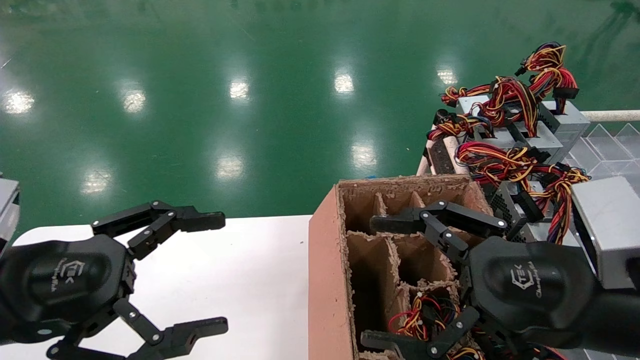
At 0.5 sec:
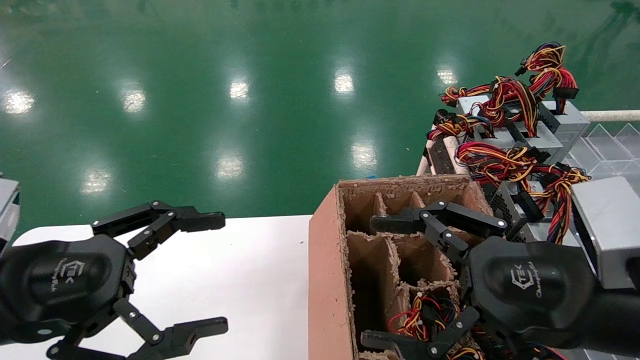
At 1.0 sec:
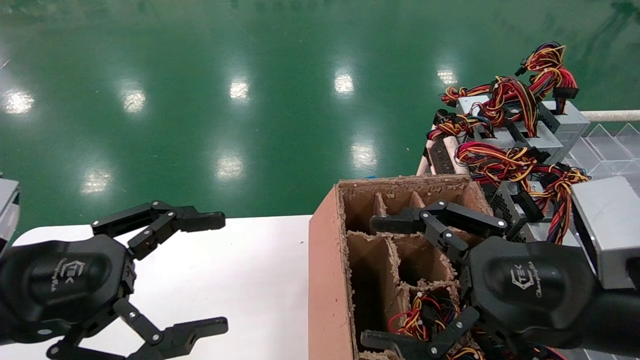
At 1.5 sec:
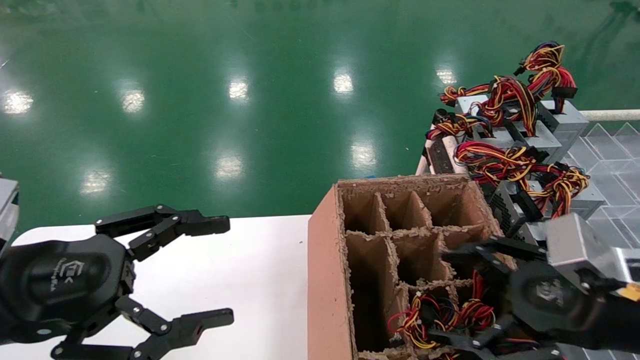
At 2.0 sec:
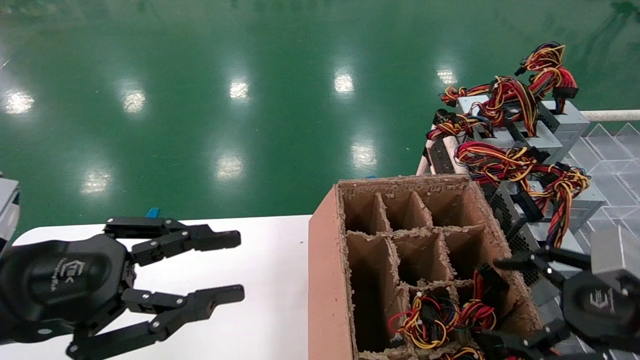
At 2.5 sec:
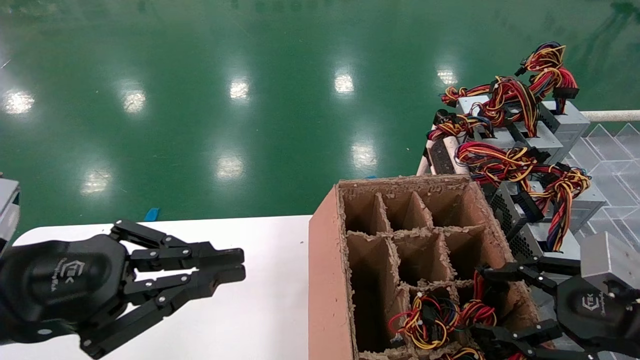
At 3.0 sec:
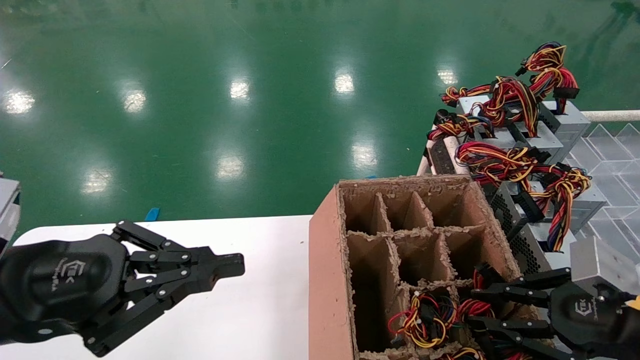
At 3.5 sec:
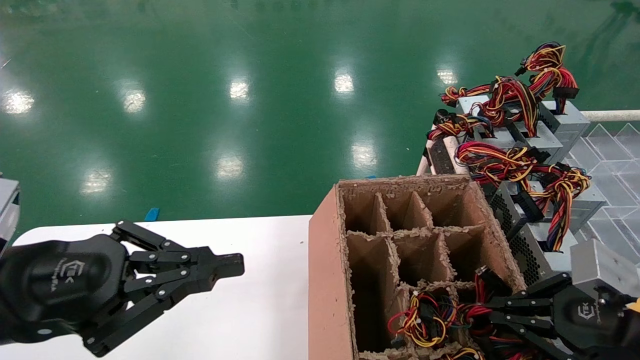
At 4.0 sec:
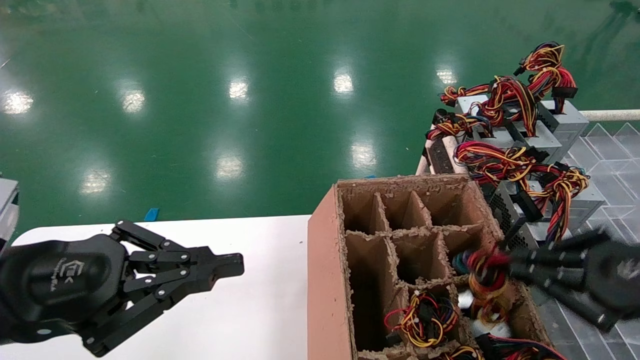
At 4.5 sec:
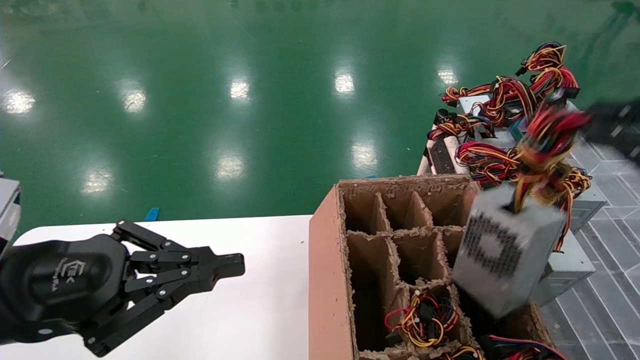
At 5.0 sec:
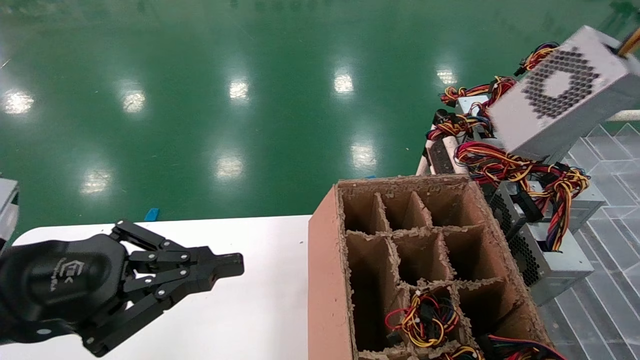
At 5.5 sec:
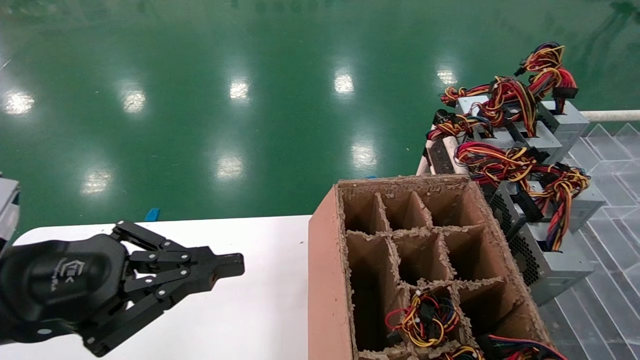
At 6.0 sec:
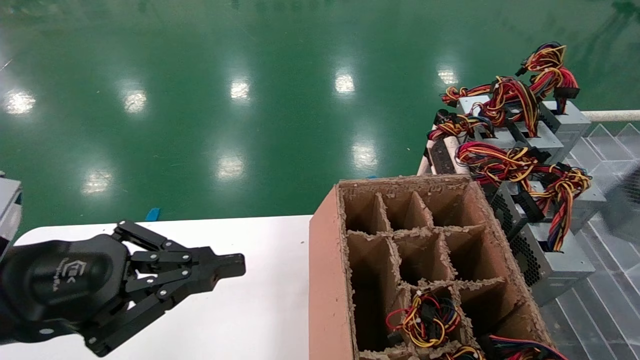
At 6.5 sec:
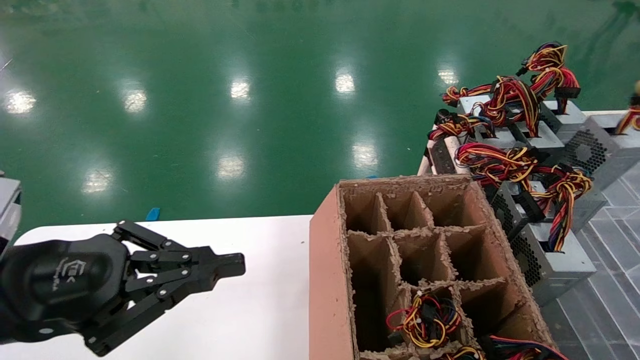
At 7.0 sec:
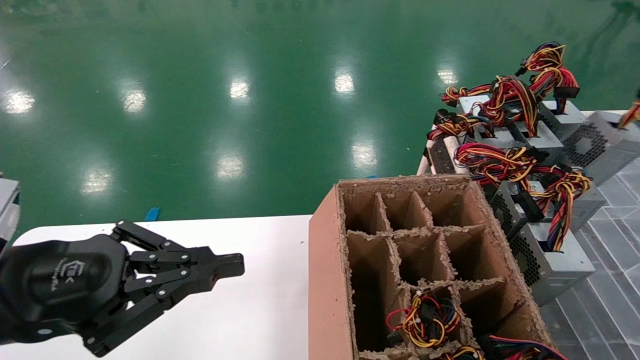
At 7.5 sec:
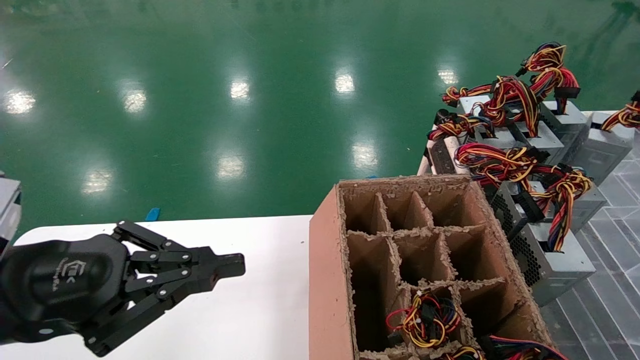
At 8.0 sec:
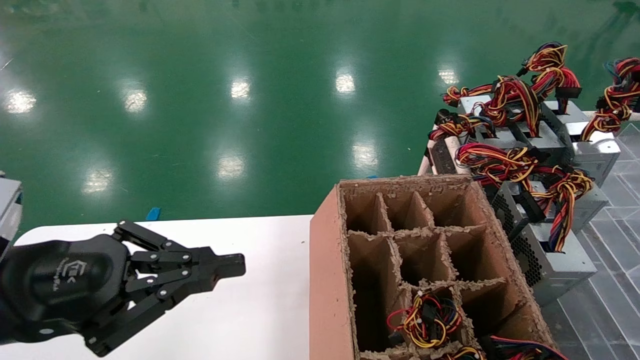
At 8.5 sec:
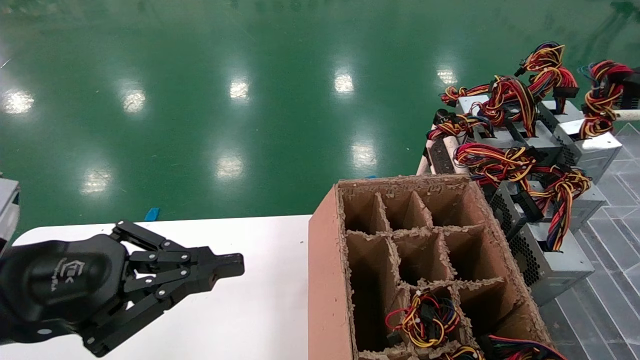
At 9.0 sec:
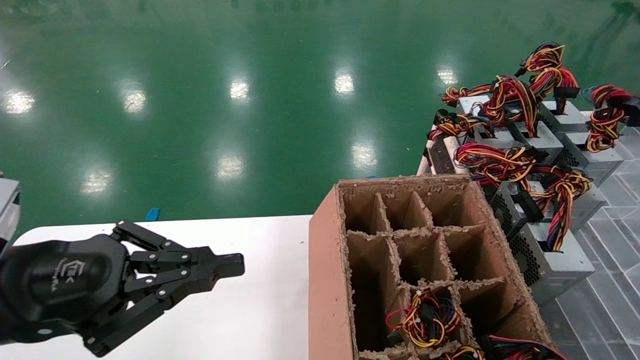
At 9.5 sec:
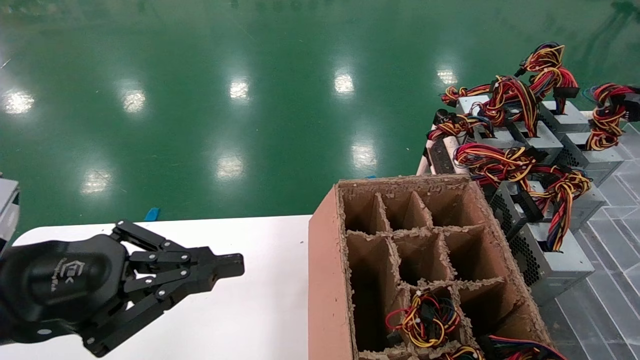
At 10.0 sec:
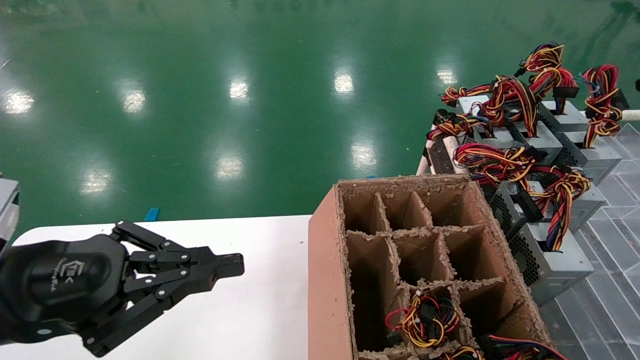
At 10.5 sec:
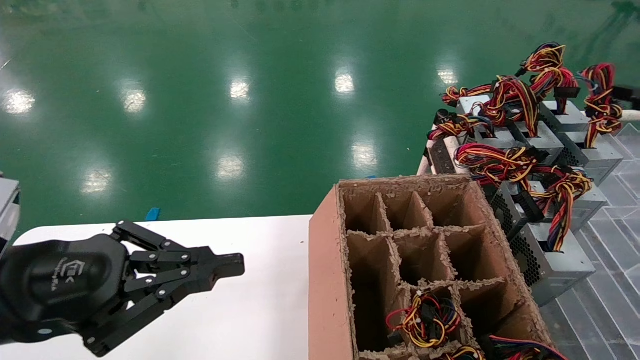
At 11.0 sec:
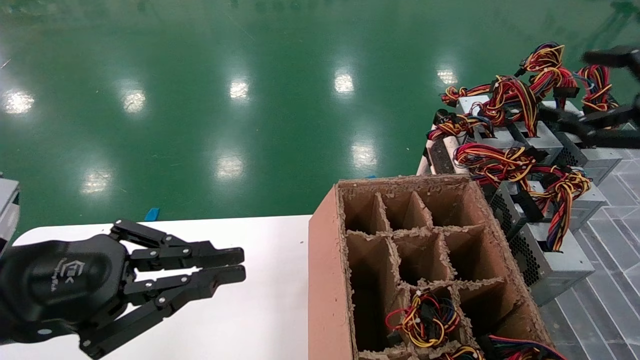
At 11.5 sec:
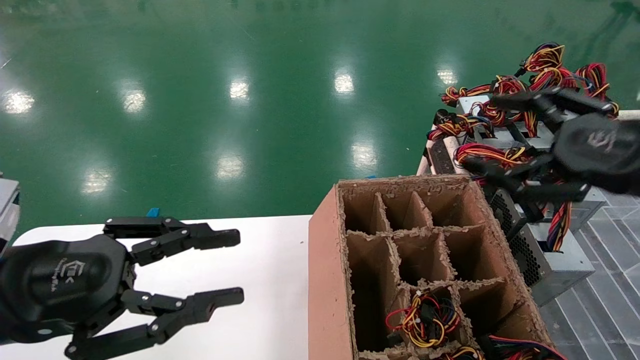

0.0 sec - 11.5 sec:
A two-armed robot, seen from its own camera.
Step, 1.5 sec - 3.0 sec: Grab the main unit power supply from the containment box.
Step, 3.5 sec - 10.5 sec: Place the main unit power supply in the designated area.
0.0 sec - 2.0 sec: The left gripper closes up; the right gripper travels to the right by roughly 10 cm.
2.0 sec - 4.0 sec: The right gripper closes up. The left gripper closes up.
4.0 sec - 6.0 sec: The right gripper moves to the right, approximately 20 cm.
6.0 sec - 7.5 sec: The right gripper shifts some 10 cm forward.
7.5 sec - 9.5 sec: There are only small adjustments of the grippers.
9.5 sec - 11.5 sec: The right gripper travels to the left by about 15 cm, and opens up.

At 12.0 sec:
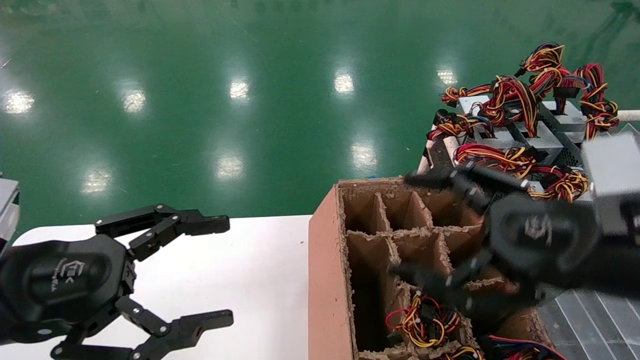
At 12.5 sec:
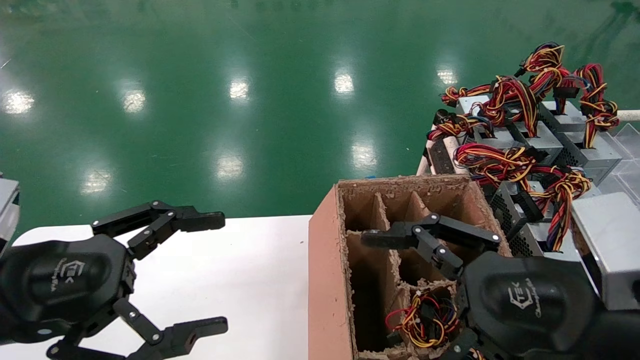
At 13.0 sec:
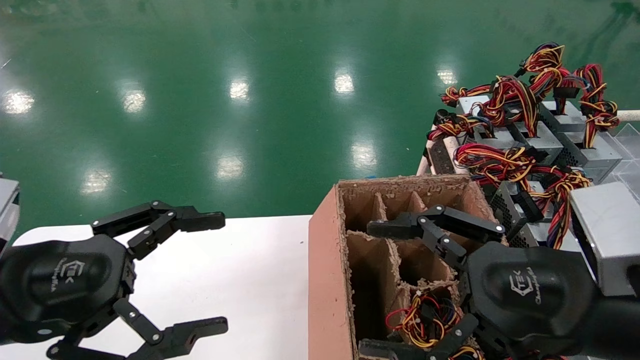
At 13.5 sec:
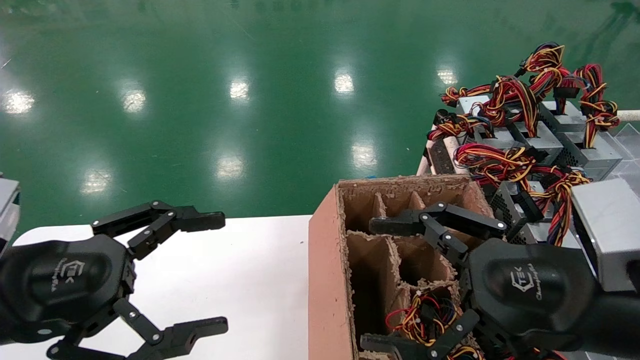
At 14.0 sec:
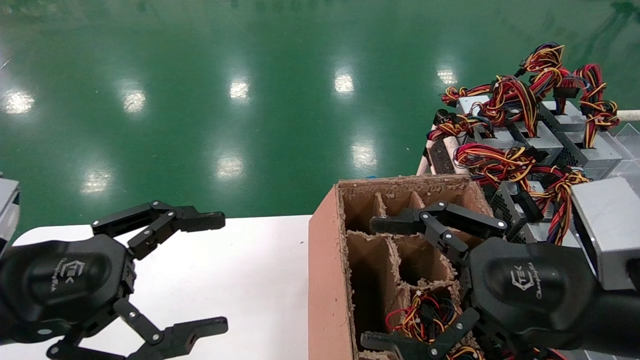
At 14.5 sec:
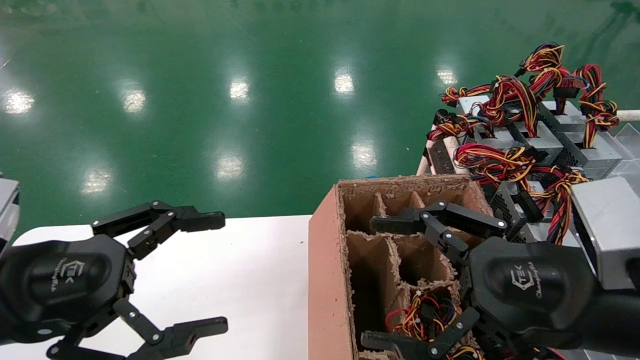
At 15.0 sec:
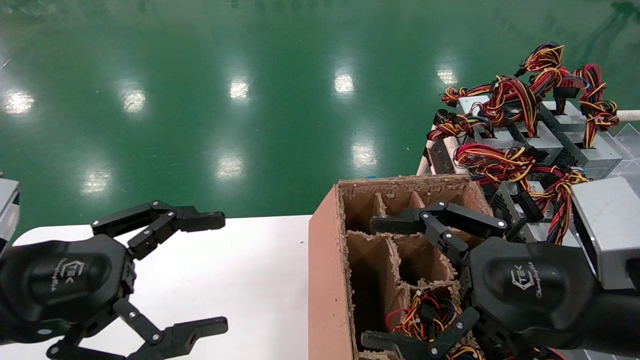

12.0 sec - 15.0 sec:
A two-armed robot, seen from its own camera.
12.0 sec - 13.5 sec: There are only small adjustments of the grippers.
13.5 sec - 15.0 sec: Both grippers stay about where they are.

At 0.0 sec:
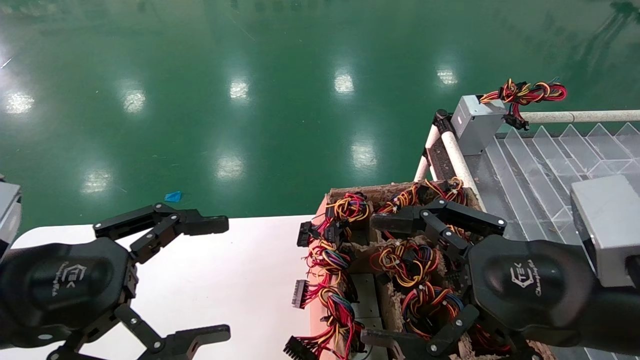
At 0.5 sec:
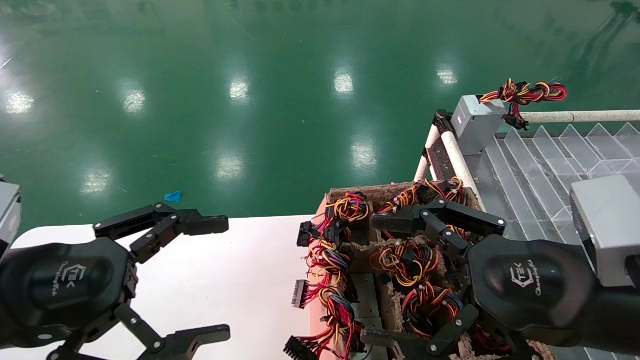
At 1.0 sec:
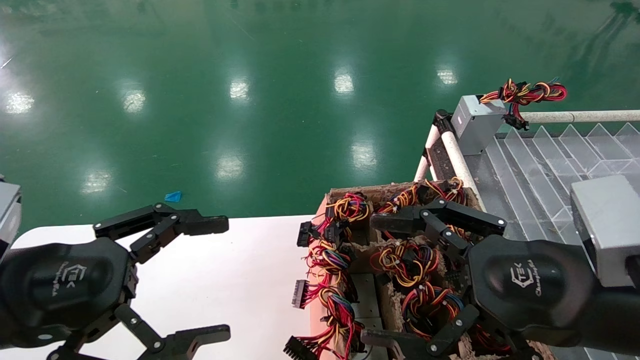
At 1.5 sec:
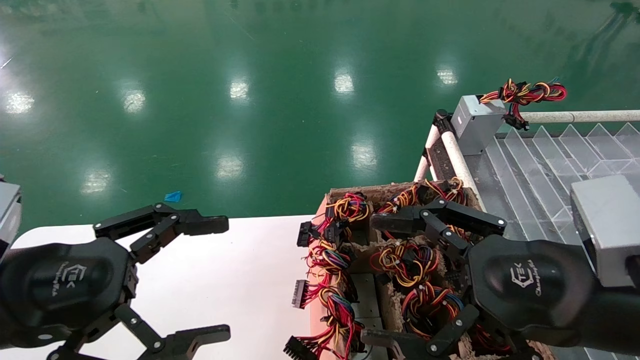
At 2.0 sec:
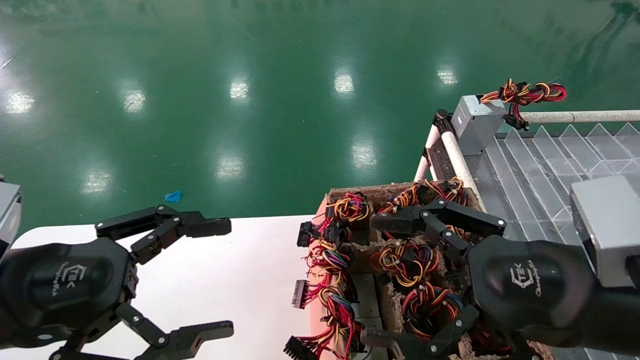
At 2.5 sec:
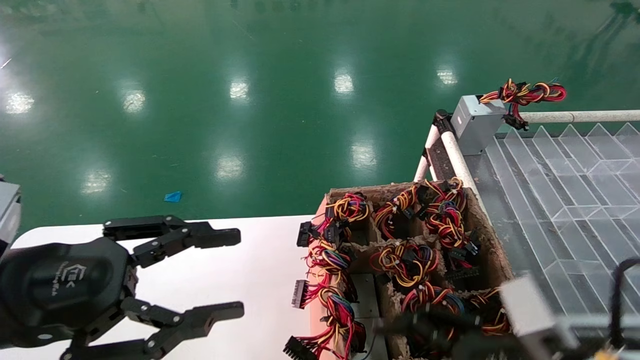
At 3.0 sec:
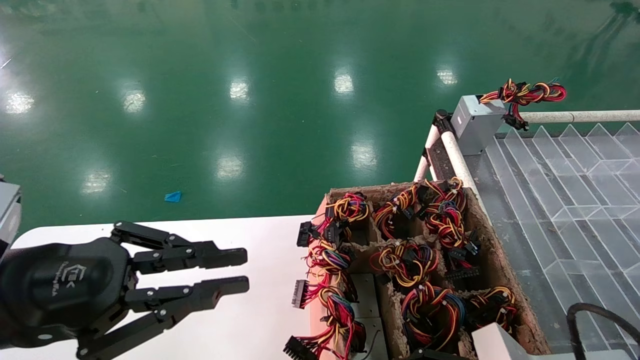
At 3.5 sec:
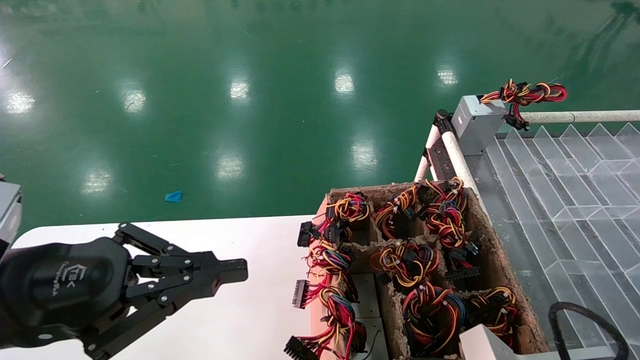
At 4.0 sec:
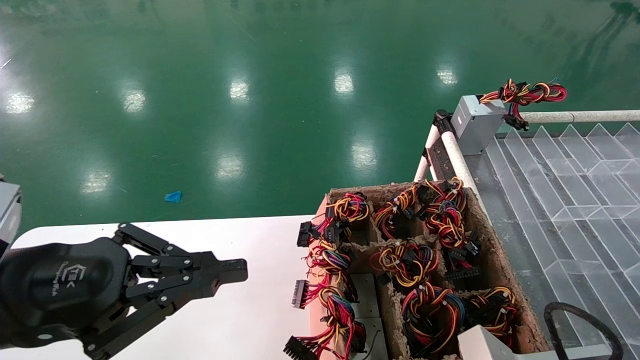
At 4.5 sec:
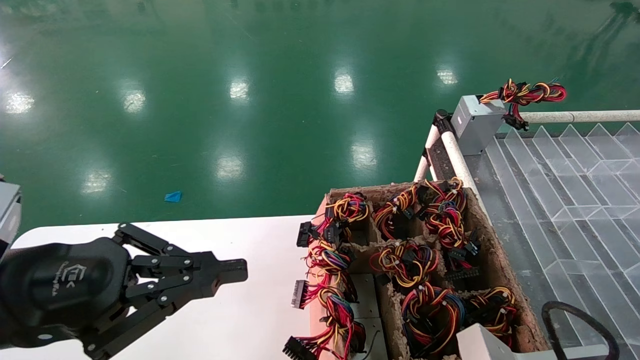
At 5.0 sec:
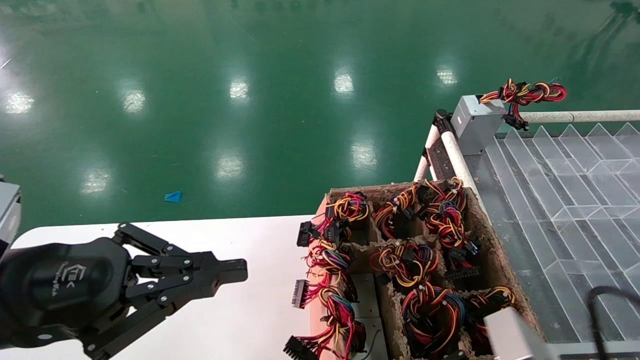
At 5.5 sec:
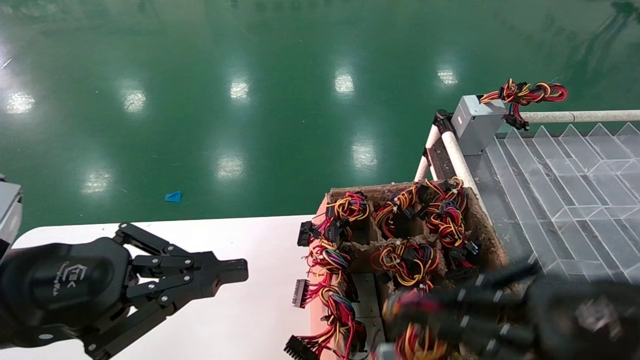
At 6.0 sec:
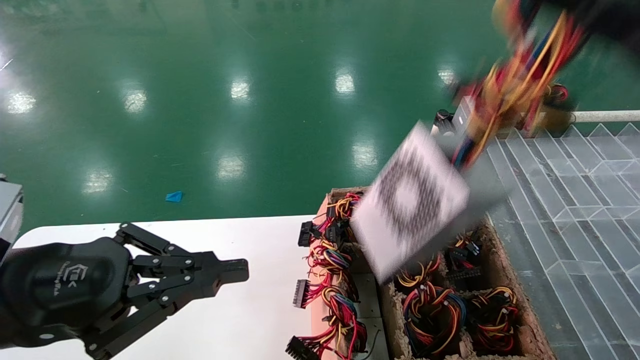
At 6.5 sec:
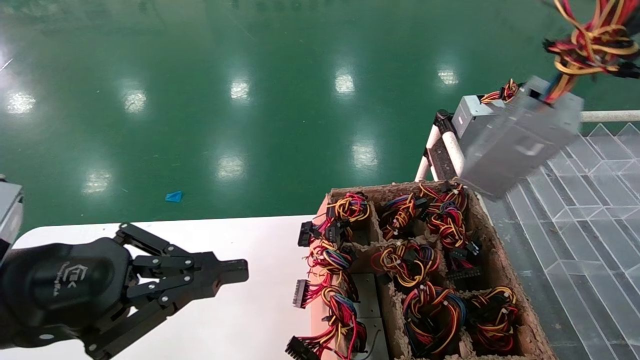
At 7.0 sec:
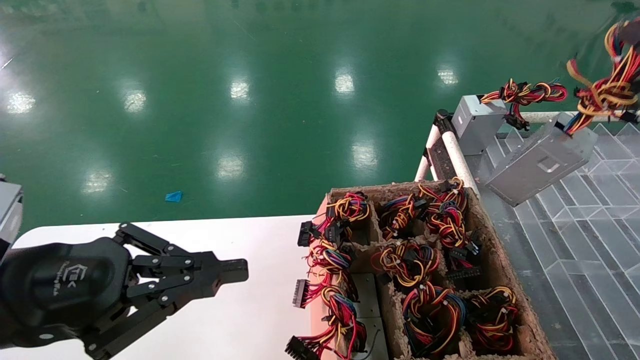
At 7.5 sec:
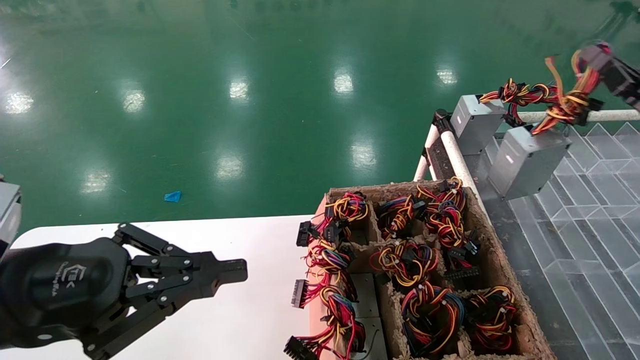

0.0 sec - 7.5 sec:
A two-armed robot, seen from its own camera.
Step, 2.5 sec - 4.5 sec: Grab the main unit power supply from the containment box.
0.0 sec - 2.0 sec: Neither gripper changes place.
2.0 sec - 4.0 sec: The left gripper closes; the right gripper goes about 10 cm downward, and closes.
4.0 sec - 5.5 sec: The right gripper shifts approximately 15 cm upward, and closes its fingers.
5.5 sec - 7.5 sec: The right gripper heads forward and to the right, covering about 25 cm.
